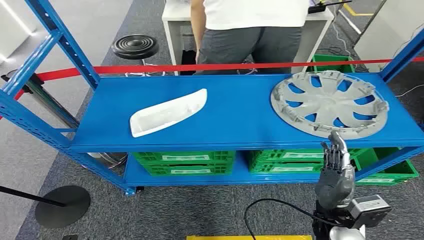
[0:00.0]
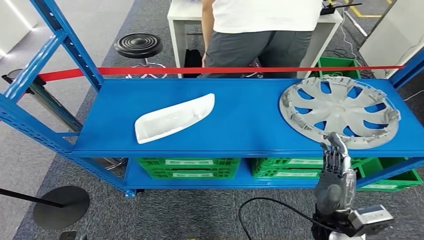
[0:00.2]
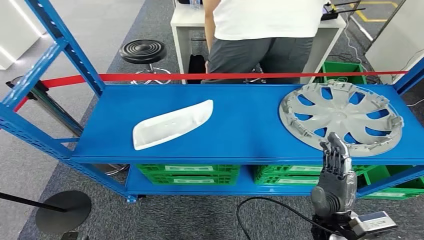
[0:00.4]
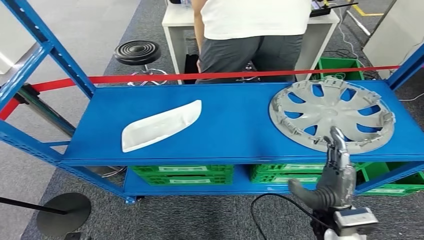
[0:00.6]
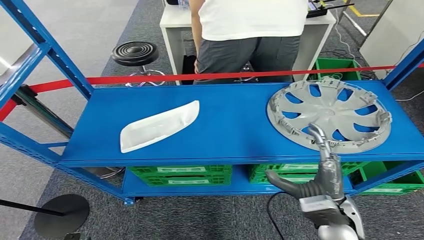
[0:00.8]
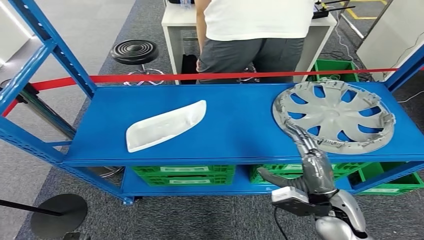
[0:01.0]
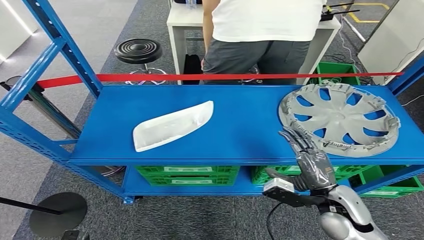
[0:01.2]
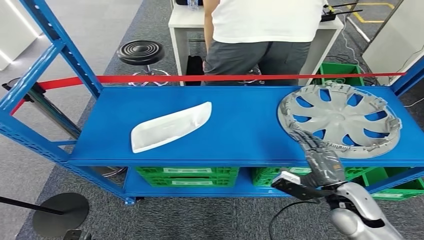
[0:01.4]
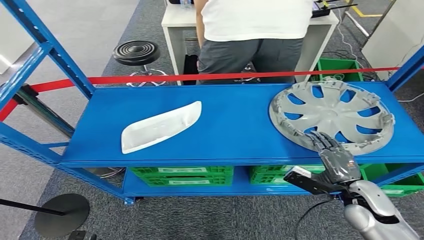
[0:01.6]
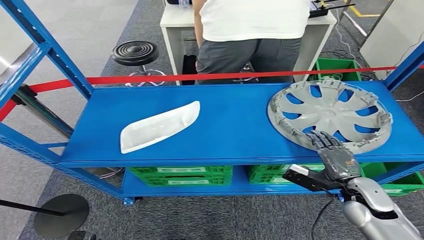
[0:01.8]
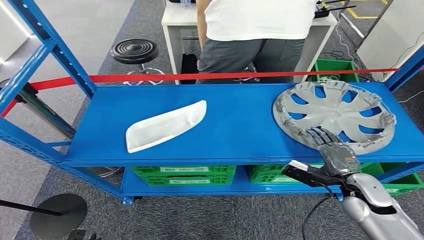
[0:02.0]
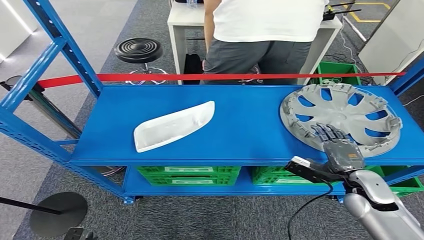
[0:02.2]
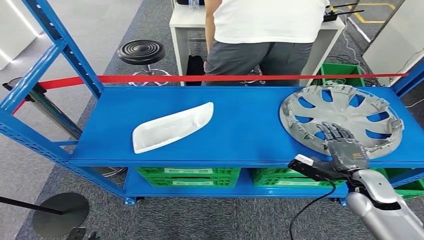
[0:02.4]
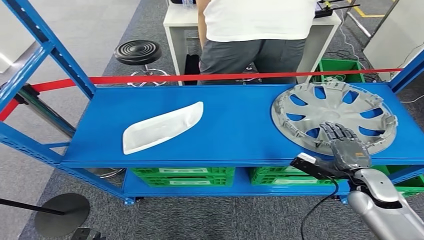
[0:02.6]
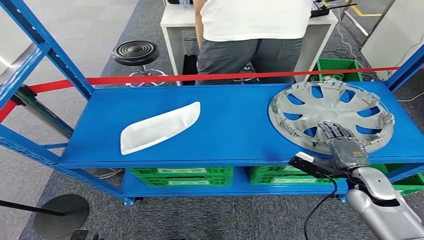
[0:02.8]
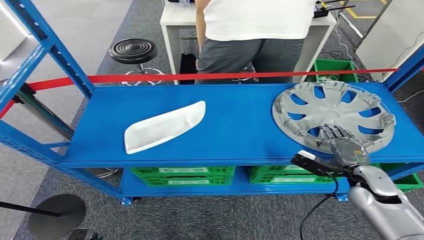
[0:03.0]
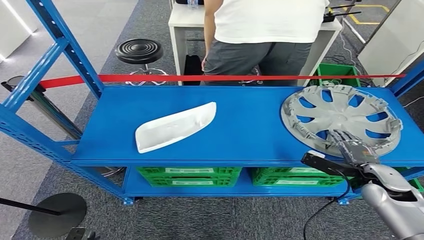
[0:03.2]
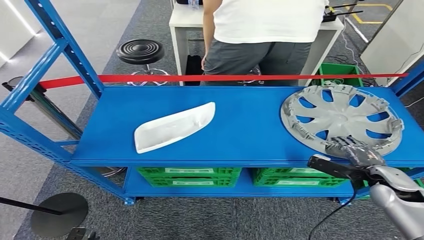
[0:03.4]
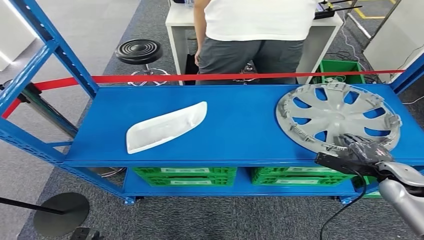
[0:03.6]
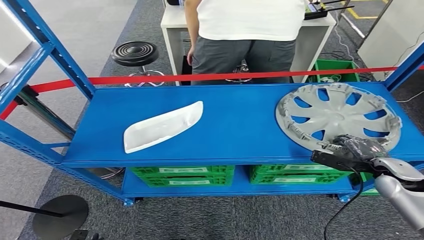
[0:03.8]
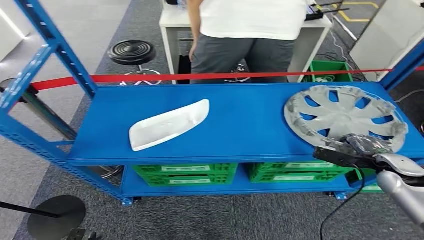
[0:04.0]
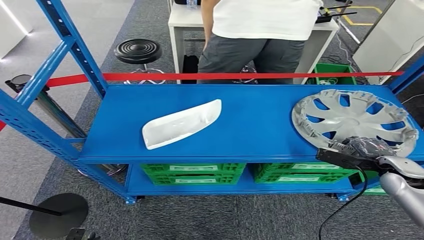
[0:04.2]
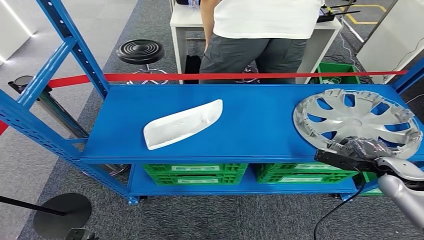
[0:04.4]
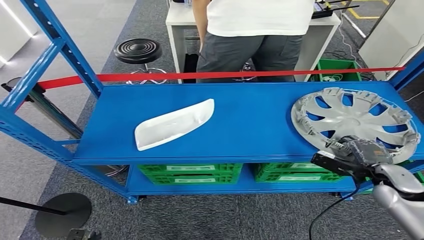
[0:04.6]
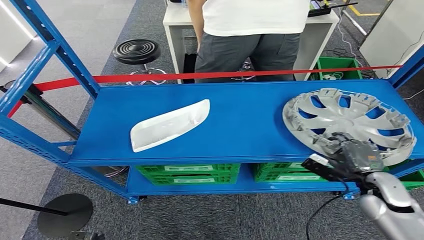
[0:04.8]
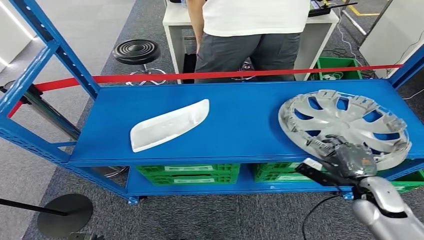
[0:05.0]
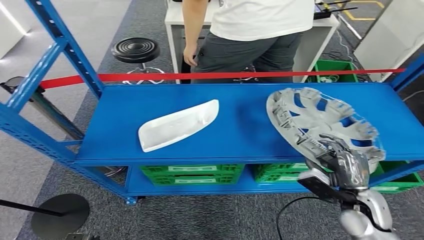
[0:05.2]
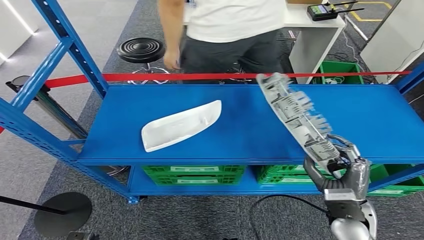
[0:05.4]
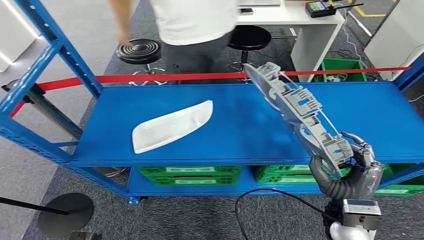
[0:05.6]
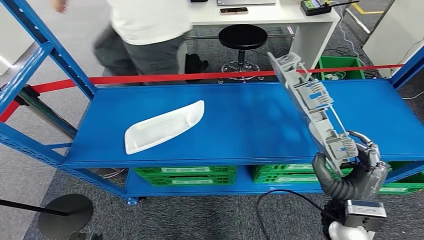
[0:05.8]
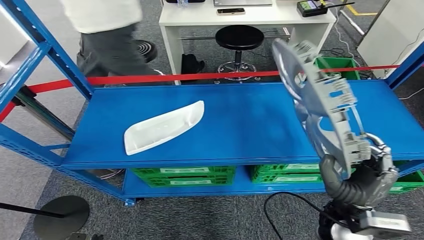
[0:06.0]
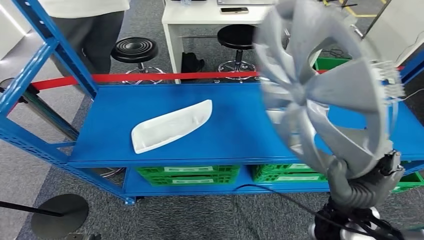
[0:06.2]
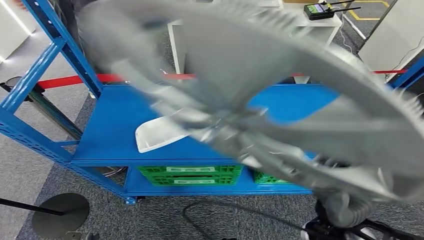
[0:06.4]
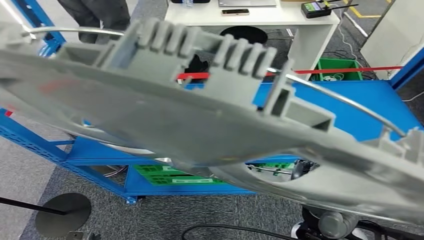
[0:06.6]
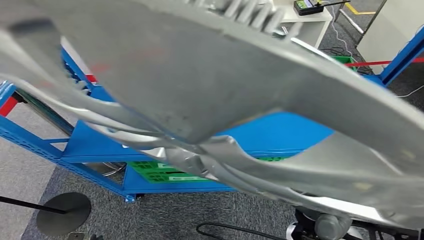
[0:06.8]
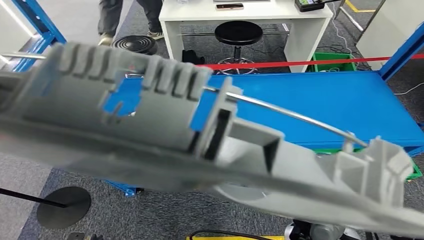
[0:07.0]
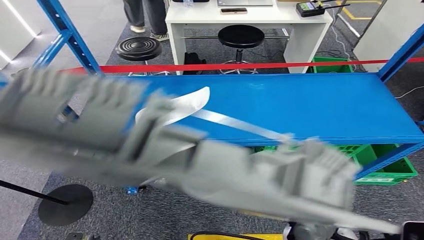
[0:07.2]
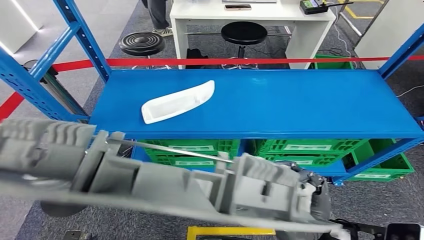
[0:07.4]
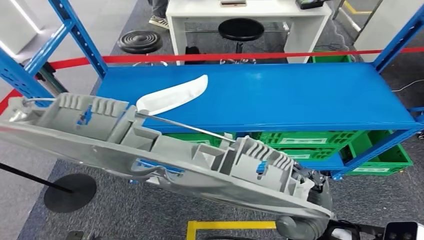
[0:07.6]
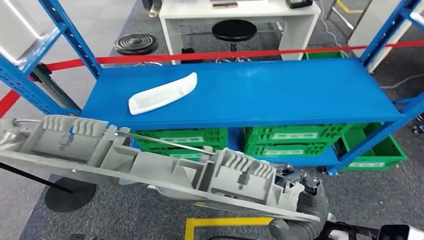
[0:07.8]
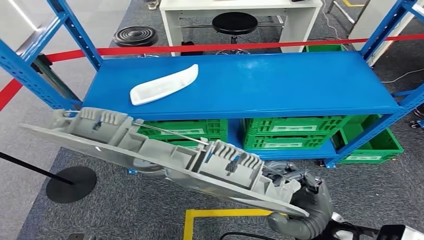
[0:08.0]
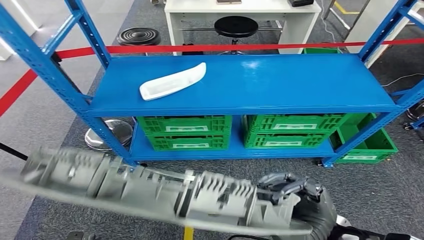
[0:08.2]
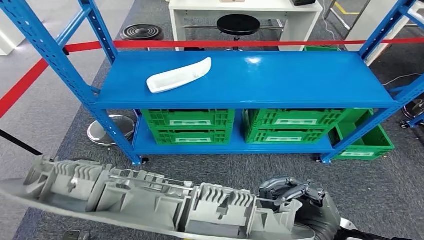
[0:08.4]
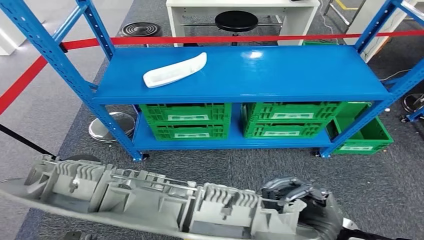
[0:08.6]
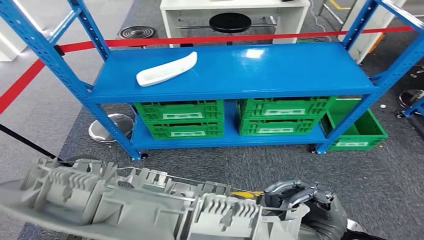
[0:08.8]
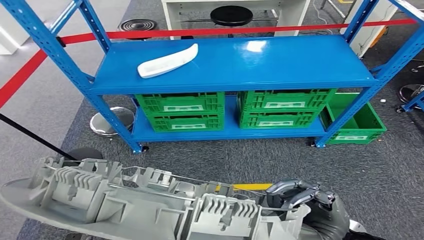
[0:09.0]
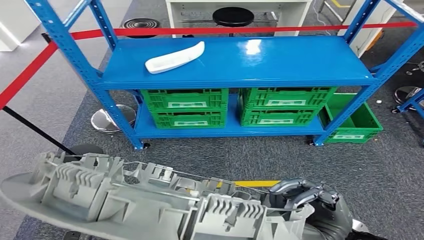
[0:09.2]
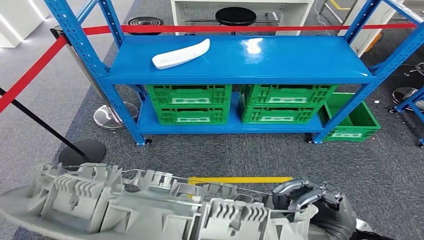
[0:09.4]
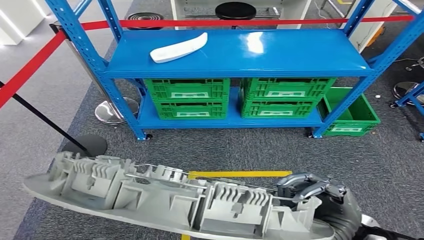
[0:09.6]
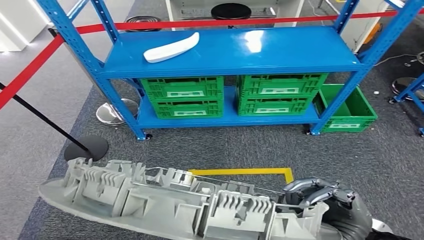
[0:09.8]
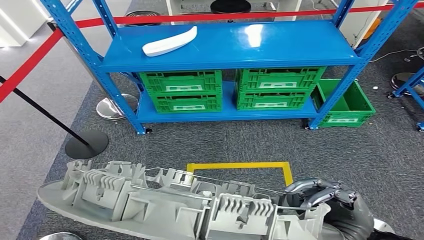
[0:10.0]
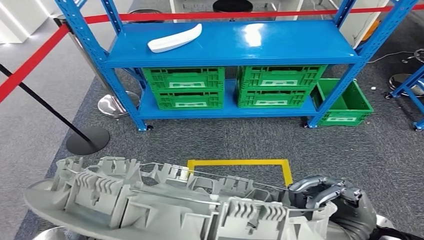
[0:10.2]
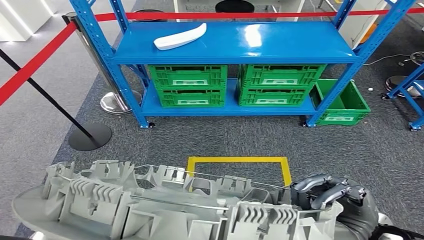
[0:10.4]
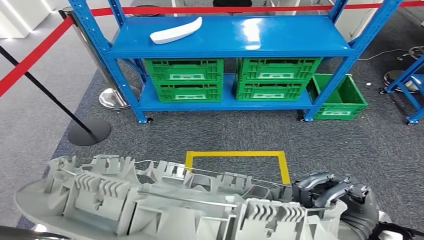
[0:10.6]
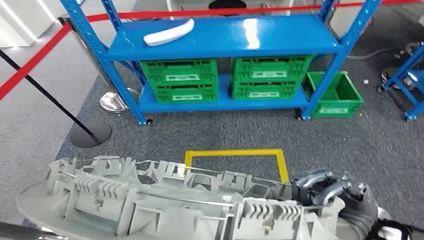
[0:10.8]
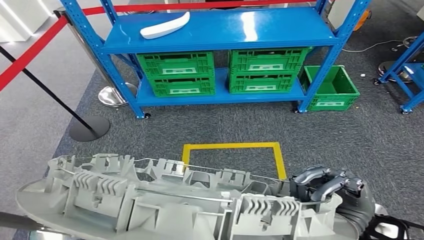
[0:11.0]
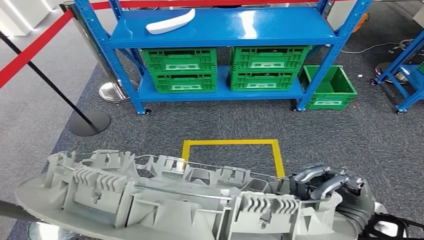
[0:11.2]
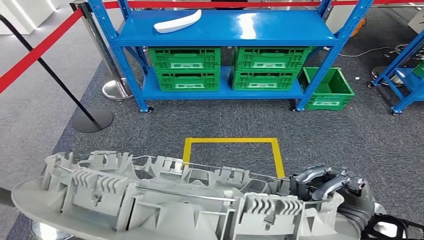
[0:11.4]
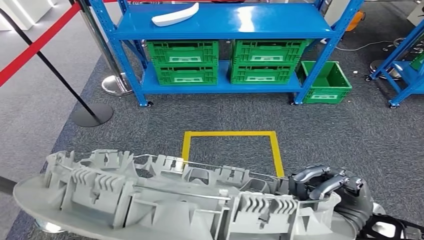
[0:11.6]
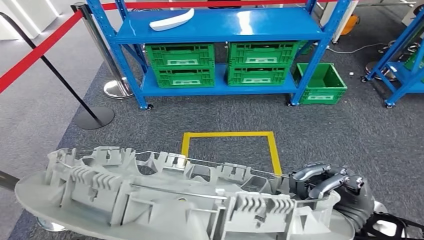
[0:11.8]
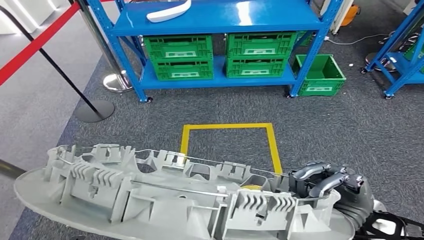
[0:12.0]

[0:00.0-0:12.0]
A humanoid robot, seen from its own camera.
Step, 0:00.0 to 0:06.2: Pick up the small component from the shelf.

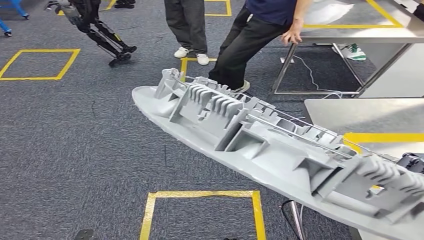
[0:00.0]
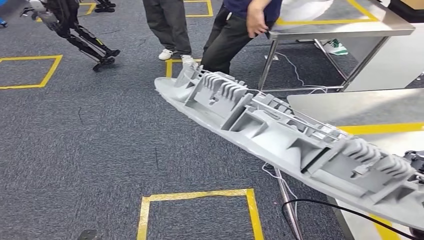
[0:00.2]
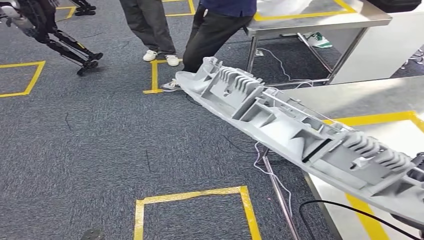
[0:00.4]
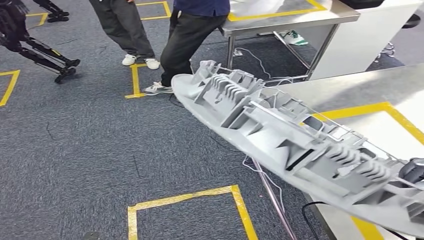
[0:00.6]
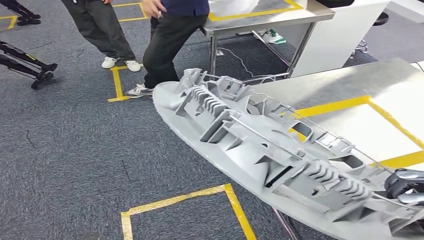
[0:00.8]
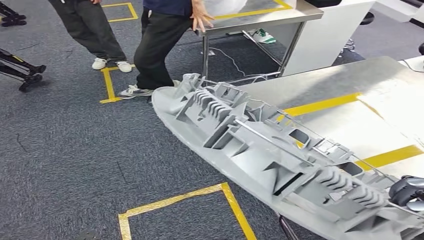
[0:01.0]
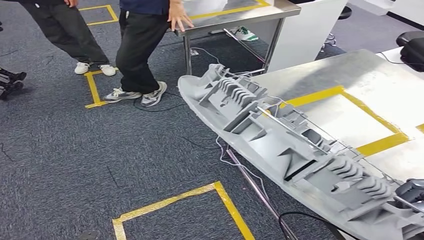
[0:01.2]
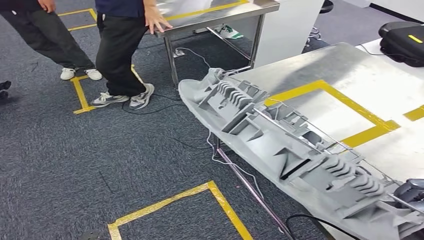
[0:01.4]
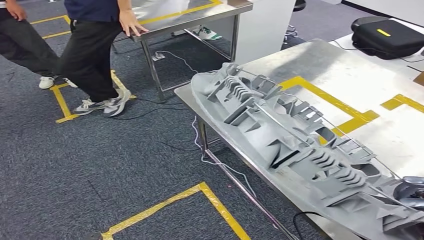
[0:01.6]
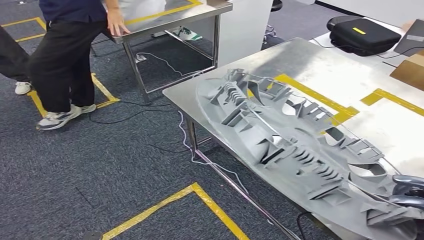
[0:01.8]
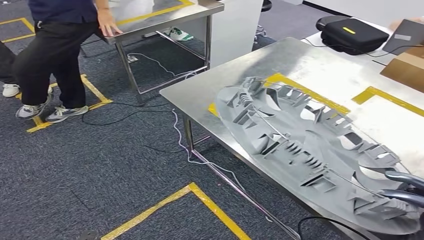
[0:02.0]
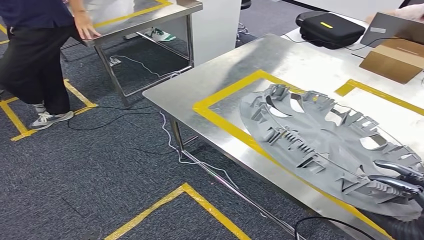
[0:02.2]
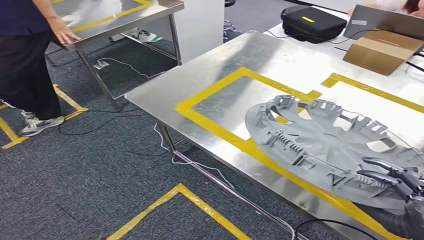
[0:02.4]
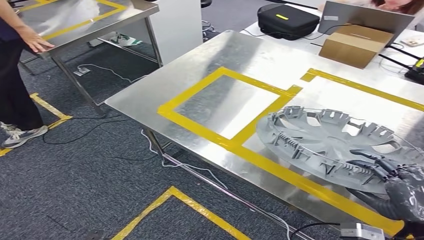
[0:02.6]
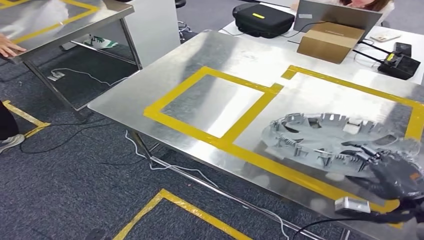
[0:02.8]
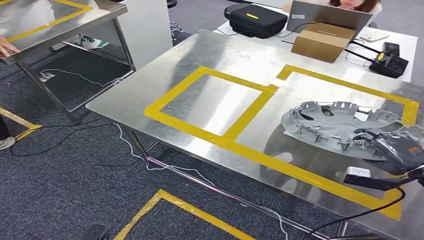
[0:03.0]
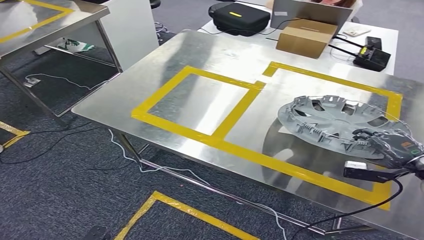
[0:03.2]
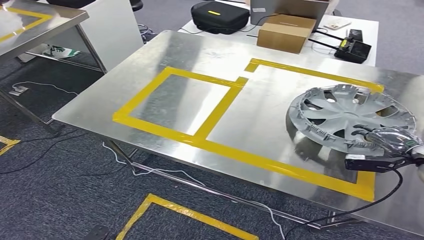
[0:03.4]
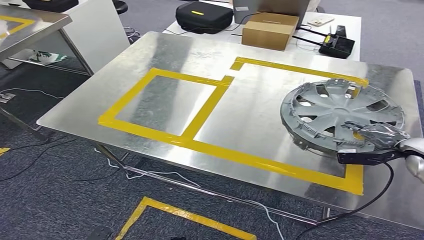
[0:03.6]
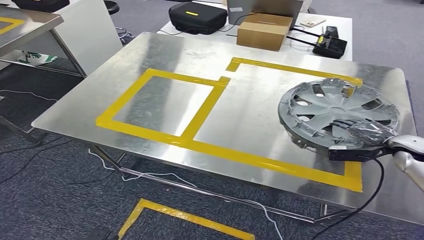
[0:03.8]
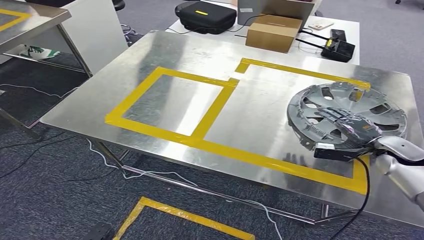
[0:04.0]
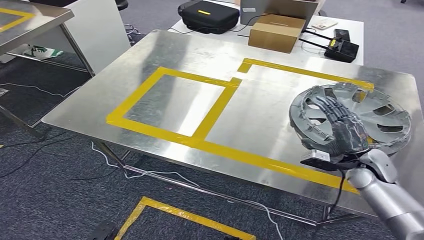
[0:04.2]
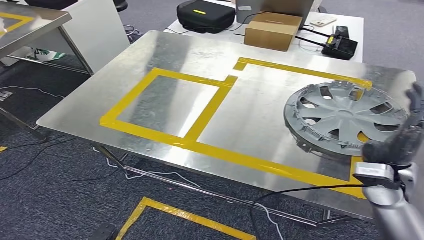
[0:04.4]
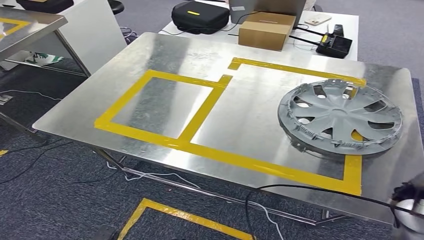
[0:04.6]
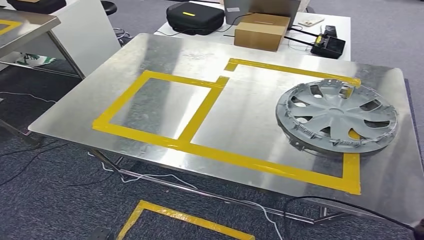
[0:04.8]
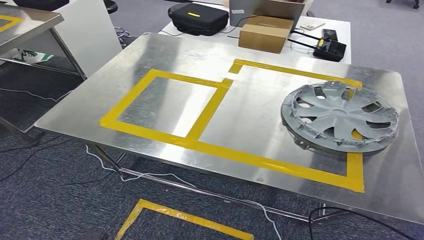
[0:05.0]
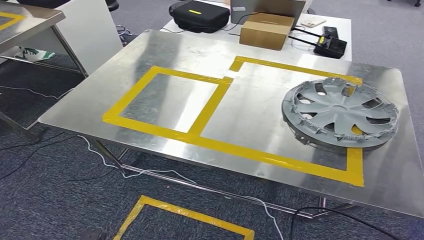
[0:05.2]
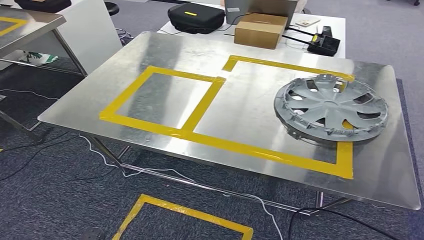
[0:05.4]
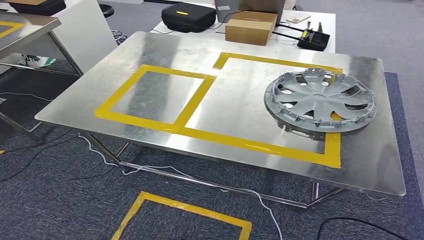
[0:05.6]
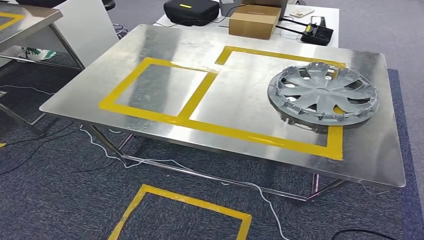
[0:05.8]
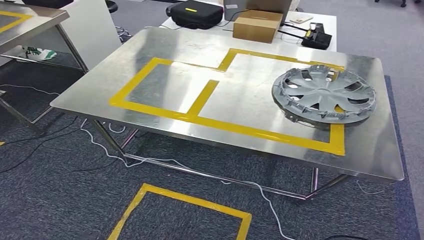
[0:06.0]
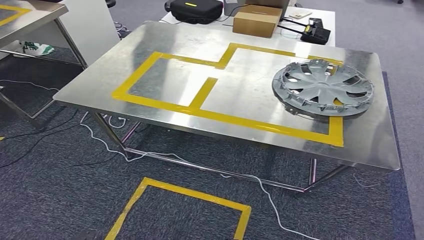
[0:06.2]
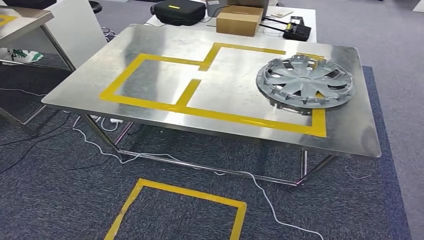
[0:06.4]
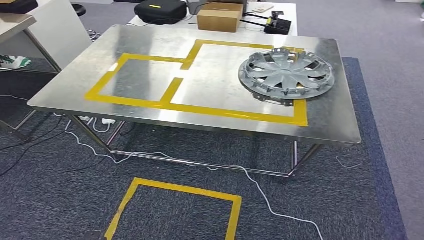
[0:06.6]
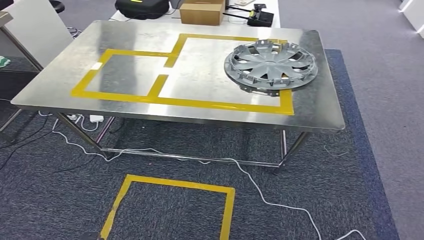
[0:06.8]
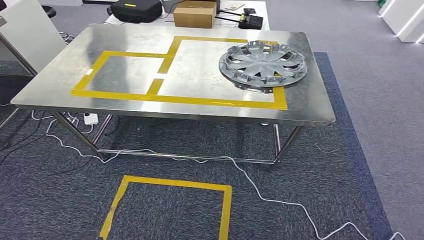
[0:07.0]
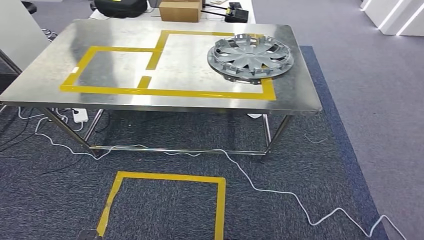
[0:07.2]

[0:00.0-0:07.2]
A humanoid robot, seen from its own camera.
Step, 0:01.4 to 0:06.8: Insert the small component into the corresponding slot on the workbench.
